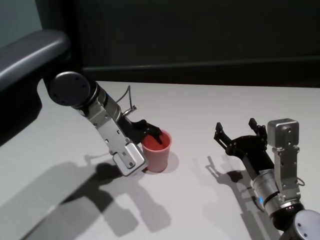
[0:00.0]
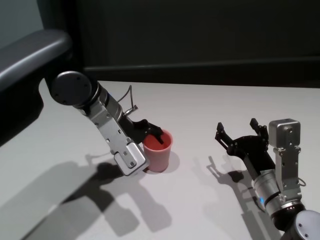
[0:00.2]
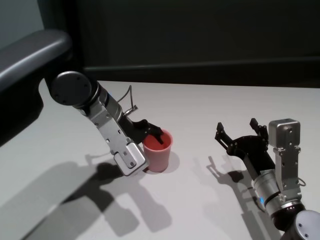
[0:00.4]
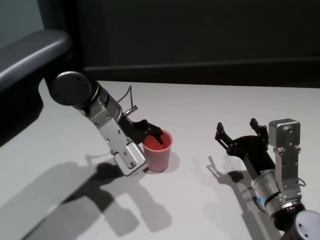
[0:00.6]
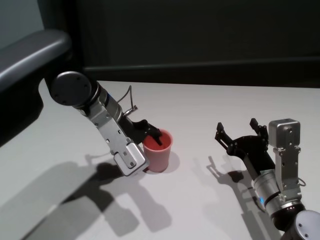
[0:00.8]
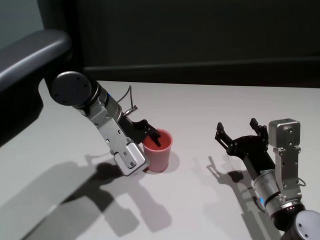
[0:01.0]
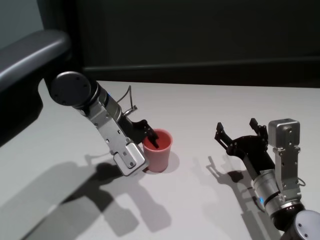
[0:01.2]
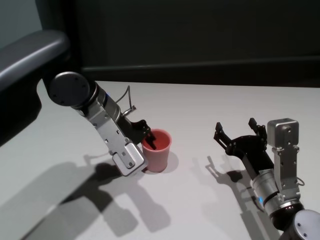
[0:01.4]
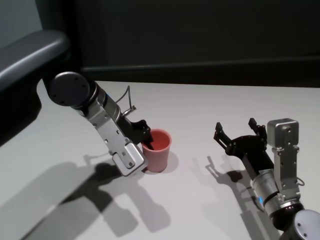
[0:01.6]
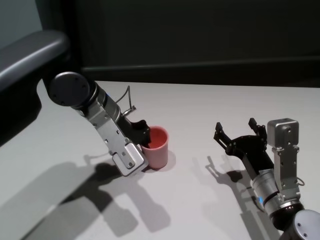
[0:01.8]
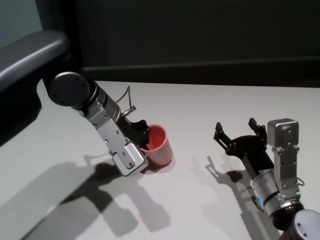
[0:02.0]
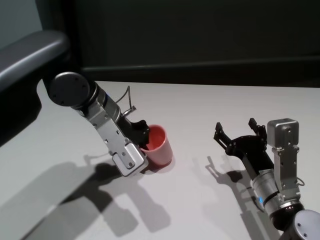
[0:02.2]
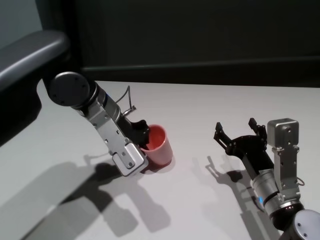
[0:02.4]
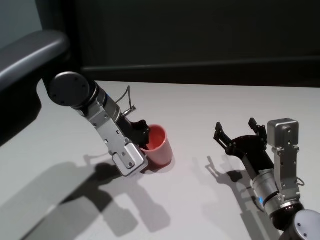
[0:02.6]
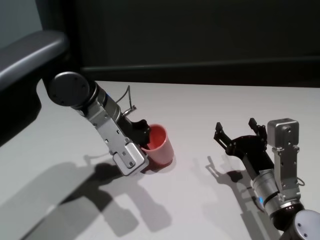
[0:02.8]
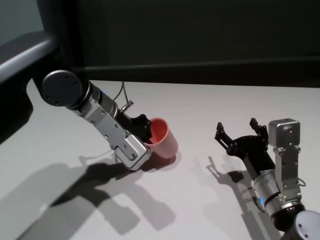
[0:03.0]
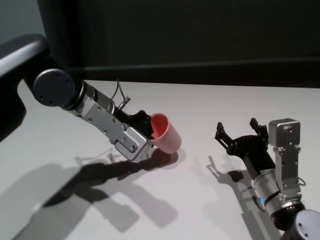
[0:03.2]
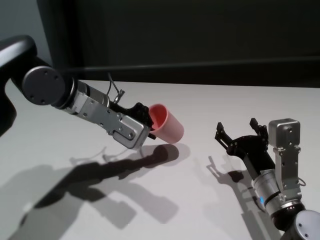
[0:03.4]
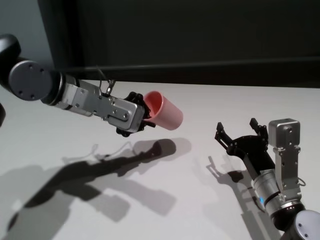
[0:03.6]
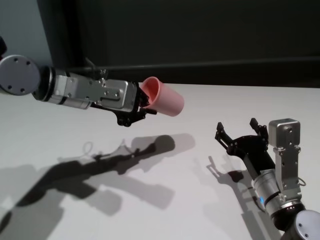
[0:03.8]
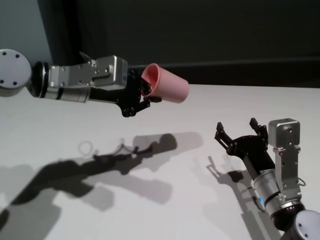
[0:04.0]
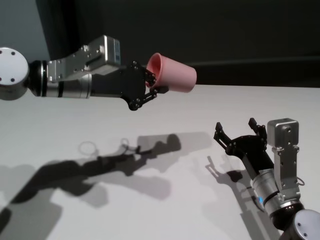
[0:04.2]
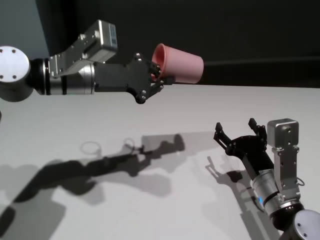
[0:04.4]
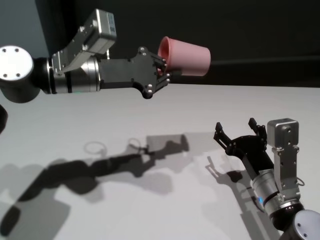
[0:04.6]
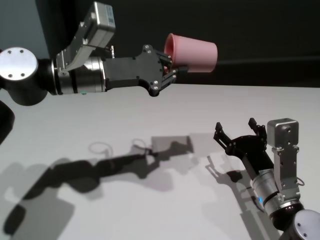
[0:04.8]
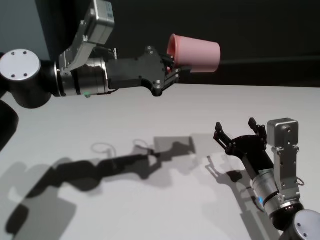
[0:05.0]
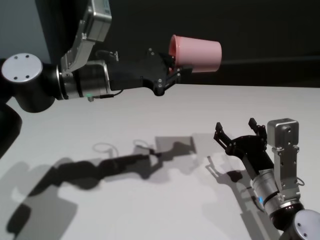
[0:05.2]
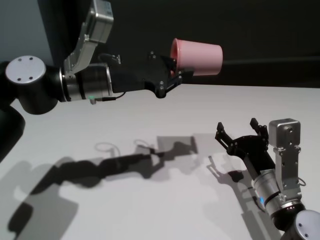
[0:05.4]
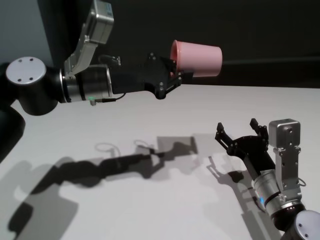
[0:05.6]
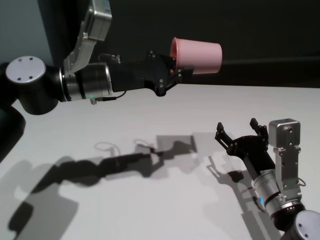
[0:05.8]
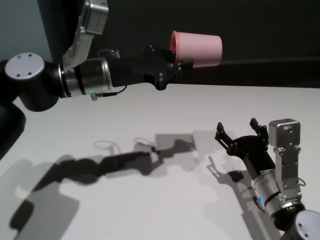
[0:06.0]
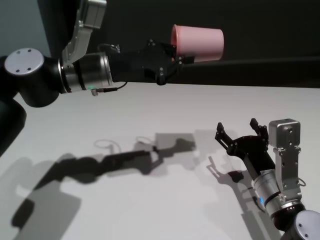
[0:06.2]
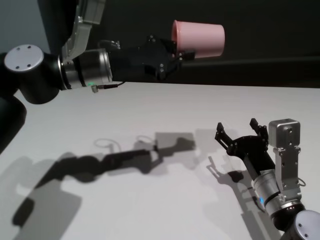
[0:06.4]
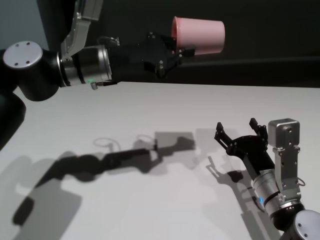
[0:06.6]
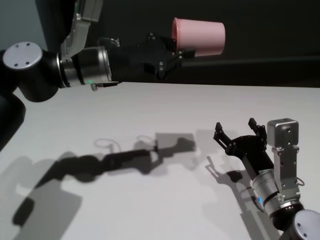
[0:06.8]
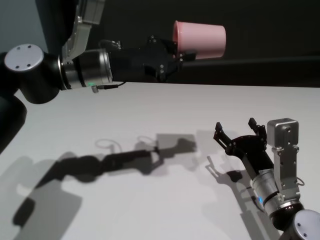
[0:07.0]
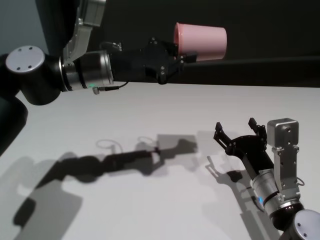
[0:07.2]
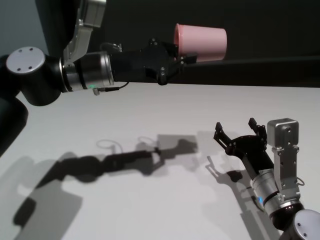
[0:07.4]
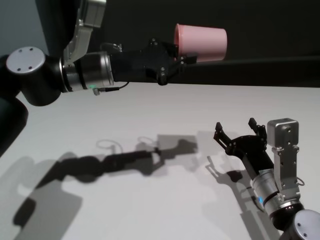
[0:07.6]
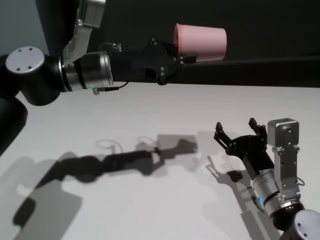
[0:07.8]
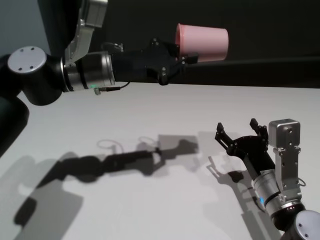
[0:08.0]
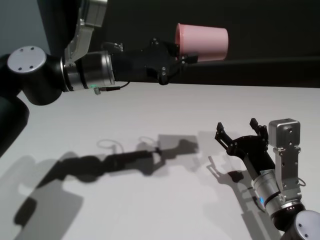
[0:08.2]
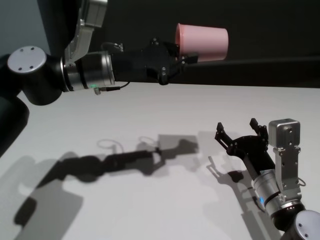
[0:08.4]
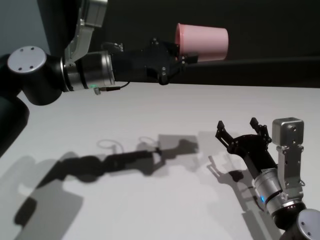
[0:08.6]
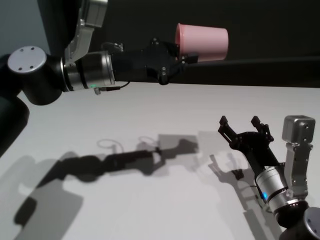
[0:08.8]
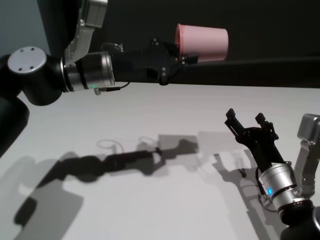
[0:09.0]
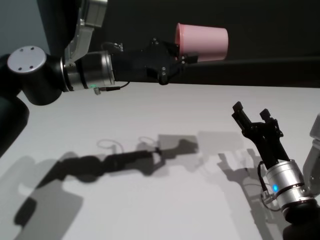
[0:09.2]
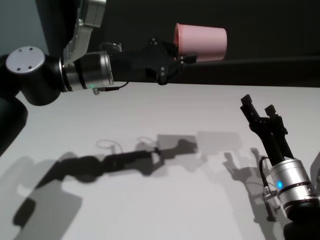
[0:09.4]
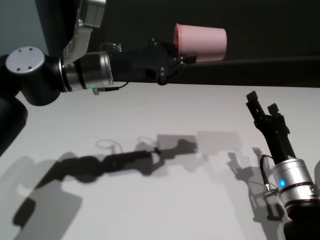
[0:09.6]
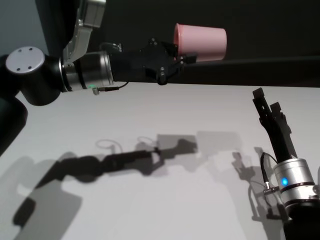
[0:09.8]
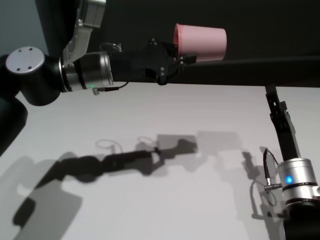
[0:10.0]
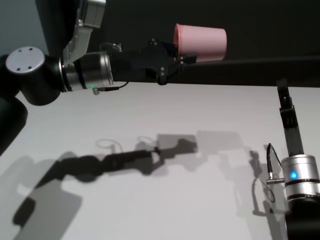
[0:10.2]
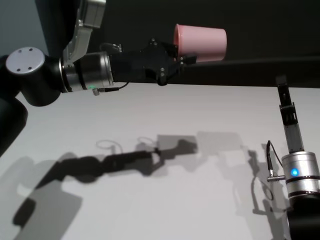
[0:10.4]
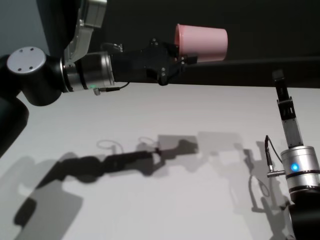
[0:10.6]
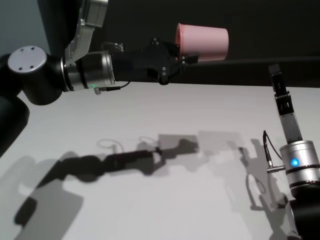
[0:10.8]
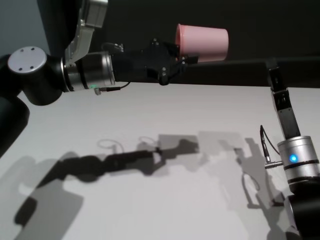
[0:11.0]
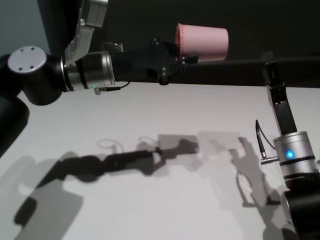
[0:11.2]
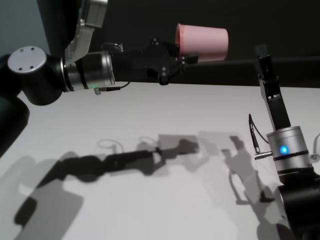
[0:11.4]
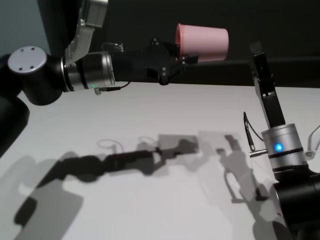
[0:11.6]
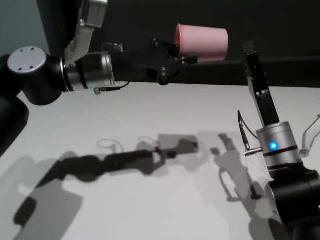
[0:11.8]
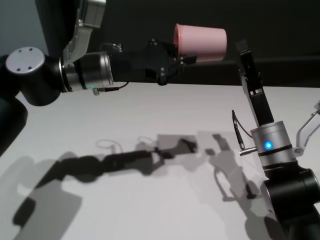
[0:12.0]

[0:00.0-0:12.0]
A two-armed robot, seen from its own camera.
Task of the whole recording: On the white table pick up the cup with one hand and transfer it to the other hand before turning it over.
Step, 0:00.0 to 0:02.6: Grasp the cup with left gripper.

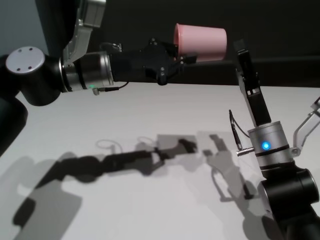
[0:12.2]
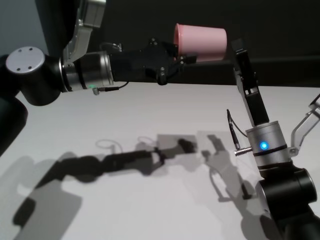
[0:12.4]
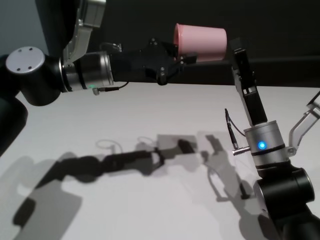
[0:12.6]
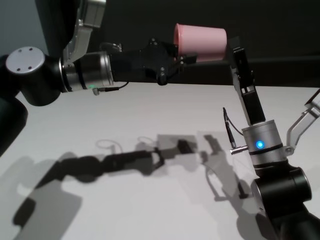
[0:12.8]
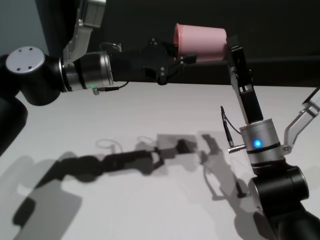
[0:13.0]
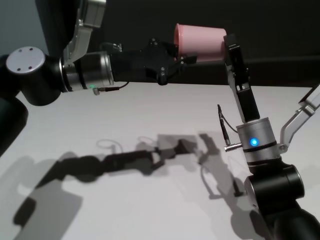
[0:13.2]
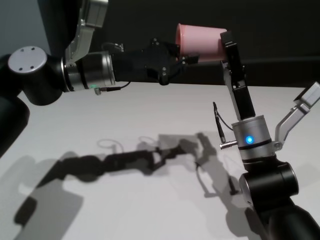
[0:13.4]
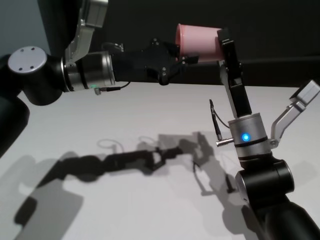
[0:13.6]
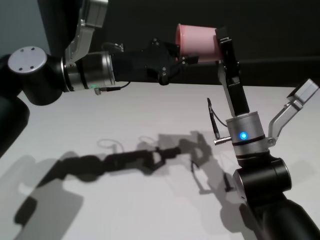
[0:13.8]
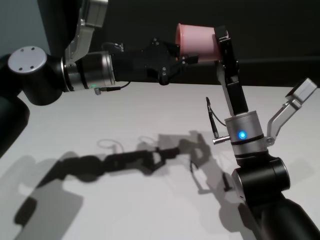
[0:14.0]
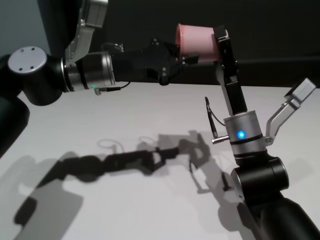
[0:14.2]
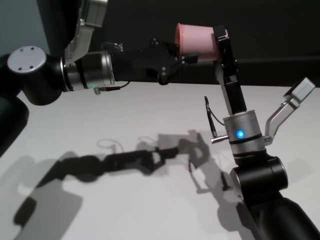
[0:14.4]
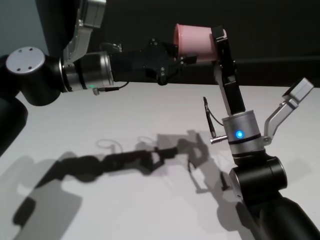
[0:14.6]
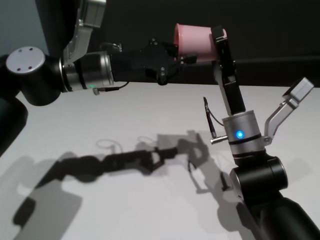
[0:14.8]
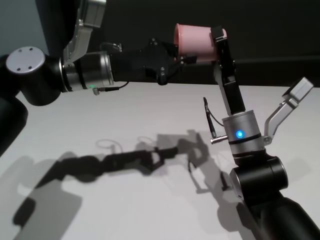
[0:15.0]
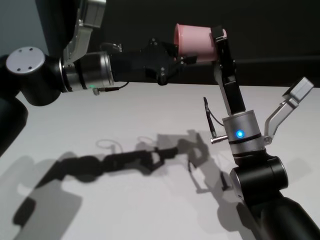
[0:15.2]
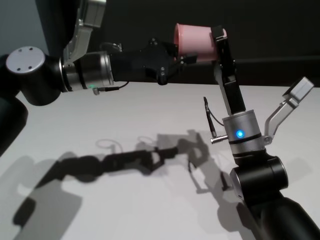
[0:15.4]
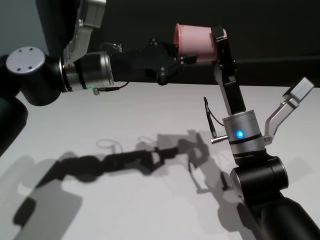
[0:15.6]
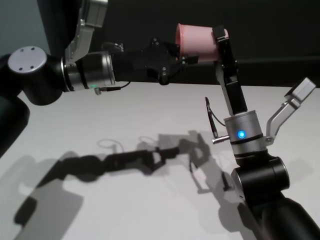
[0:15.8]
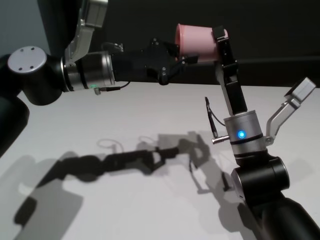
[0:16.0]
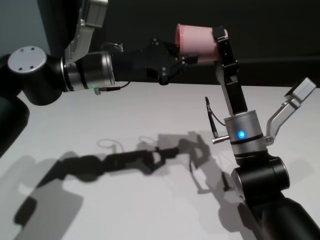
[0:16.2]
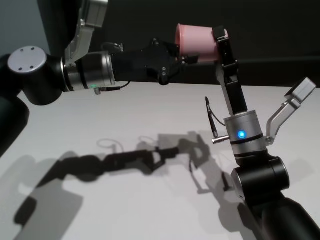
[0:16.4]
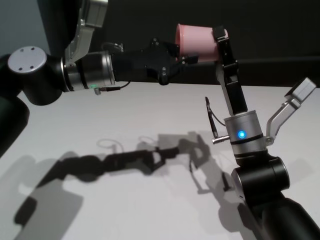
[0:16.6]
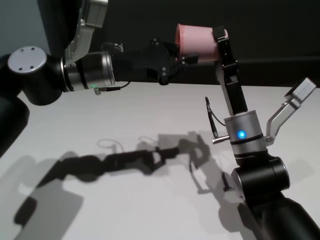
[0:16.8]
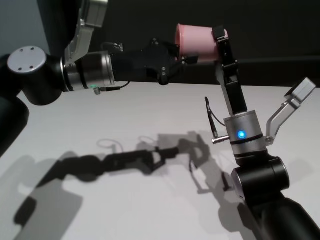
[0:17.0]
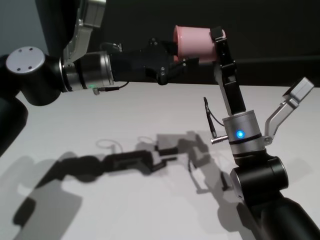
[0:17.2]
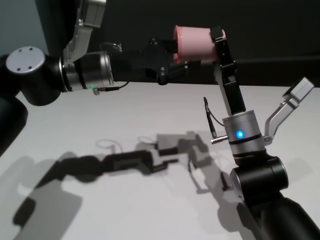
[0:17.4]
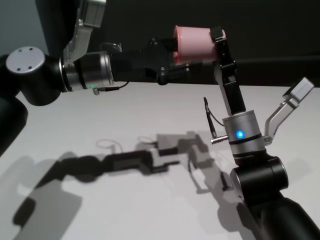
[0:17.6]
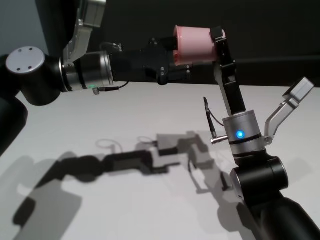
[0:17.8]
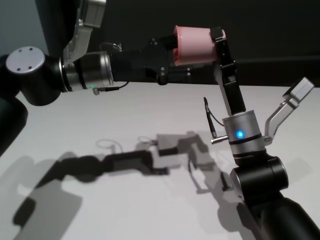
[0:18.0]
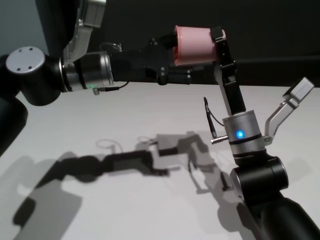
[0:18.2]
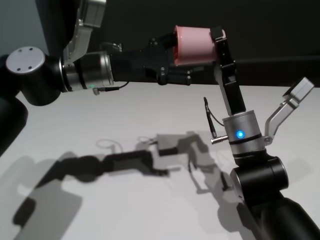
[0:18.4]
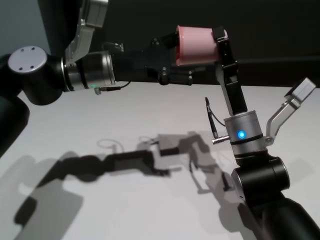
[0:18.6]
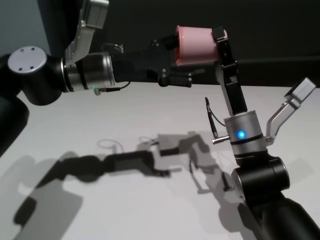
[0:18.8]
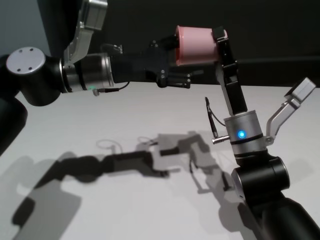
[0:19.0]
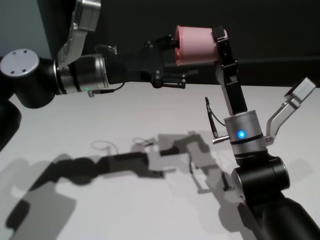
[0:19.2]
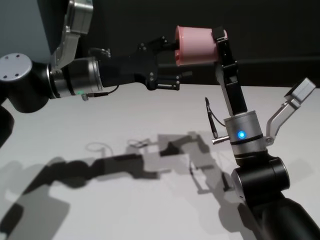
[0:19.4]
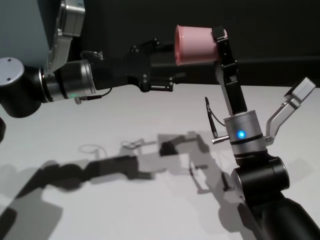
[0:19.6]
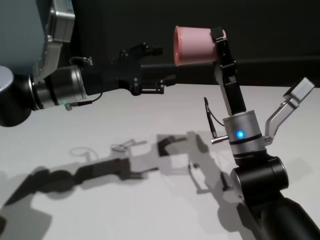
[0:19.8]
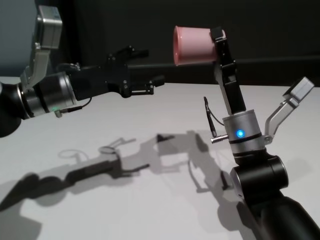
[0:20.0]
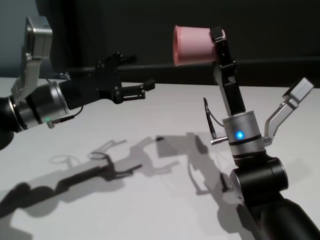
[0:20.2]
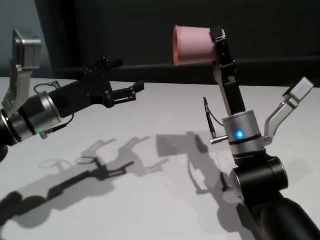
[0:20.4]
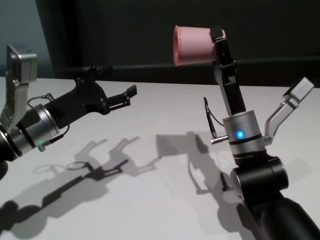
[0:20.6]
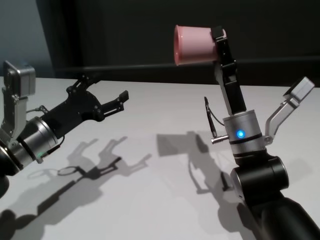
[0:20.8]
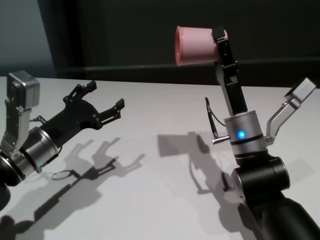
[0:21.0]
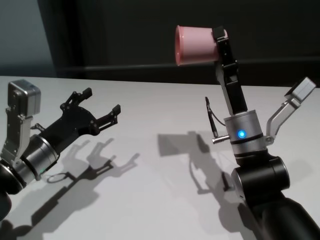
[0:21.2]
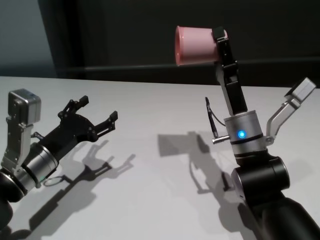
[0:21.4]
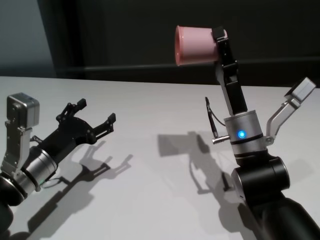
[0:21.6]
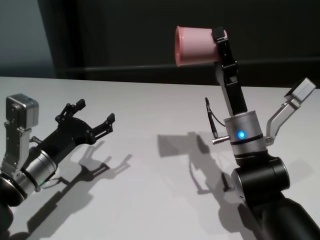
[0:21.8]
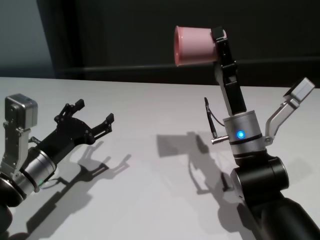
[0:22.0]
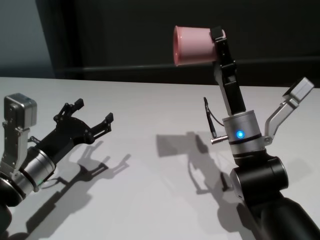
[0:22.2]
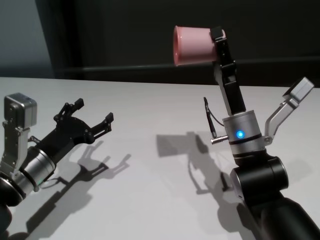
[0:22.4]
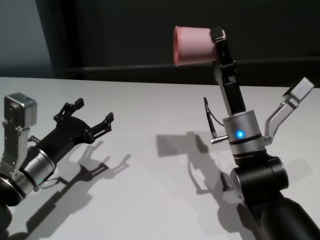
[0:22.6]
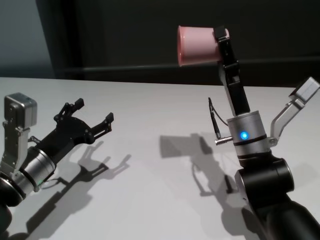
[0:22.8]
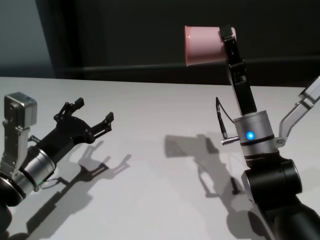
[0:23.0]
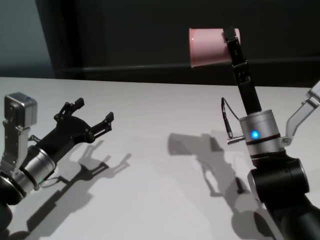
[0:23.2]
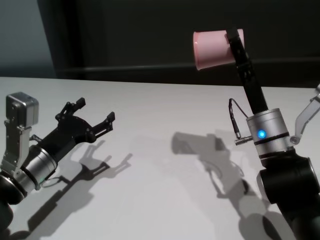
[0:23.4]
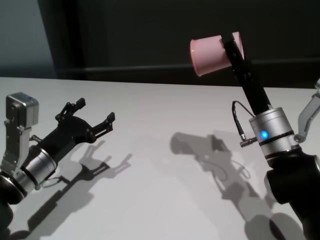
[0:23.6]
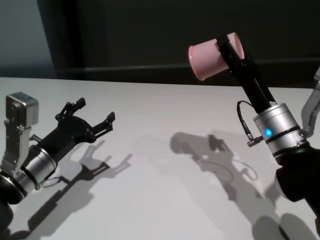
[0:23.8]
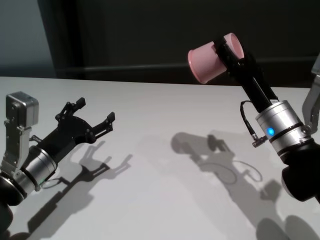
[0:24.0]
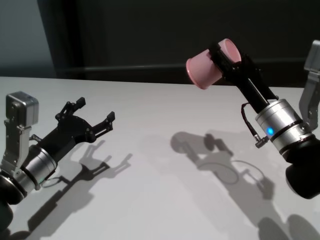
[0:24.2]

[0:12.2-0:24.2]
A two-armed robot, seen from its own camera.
Task of the whole recording: On the white table pick up the cup with one hand and transfer it to the other hand before turning it over.
Step, 0:12.2 to 0:19.6: Pass the cup to the right gripper.
